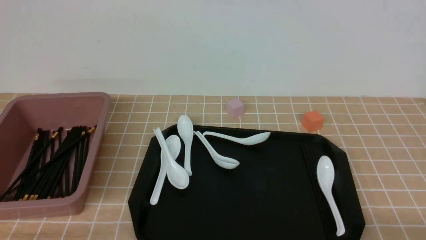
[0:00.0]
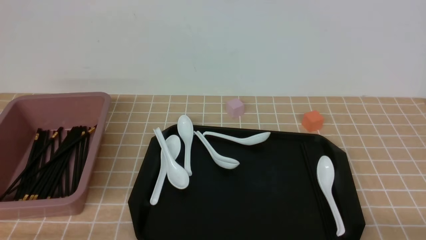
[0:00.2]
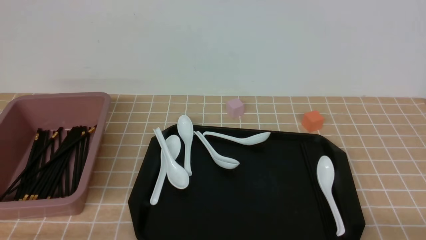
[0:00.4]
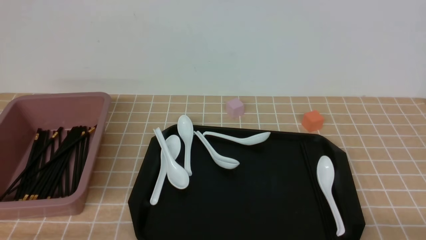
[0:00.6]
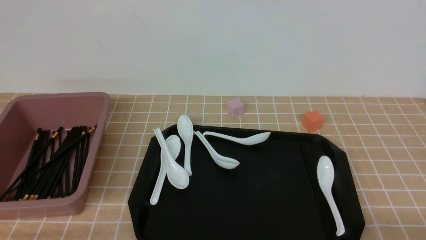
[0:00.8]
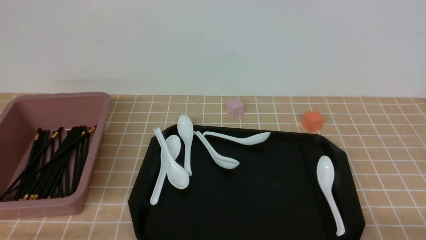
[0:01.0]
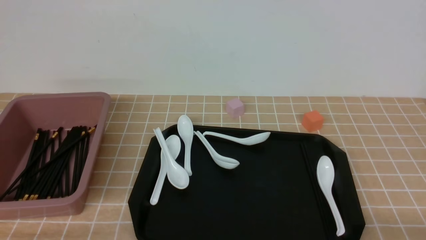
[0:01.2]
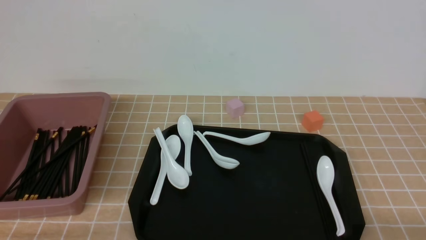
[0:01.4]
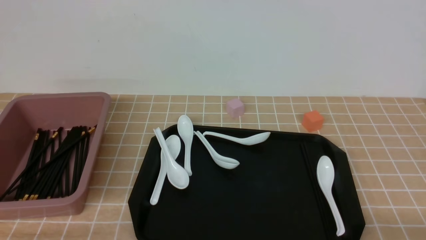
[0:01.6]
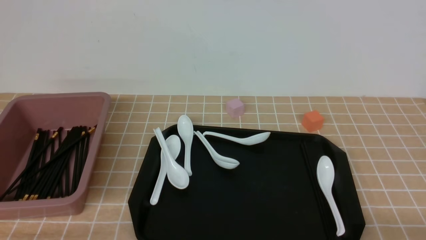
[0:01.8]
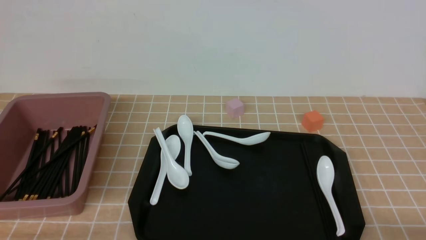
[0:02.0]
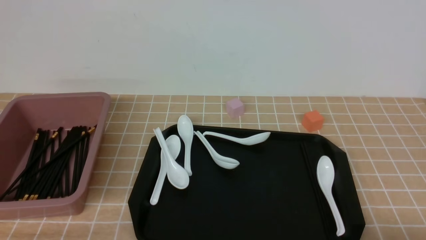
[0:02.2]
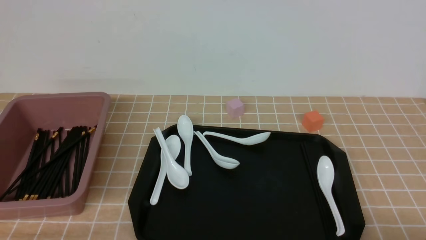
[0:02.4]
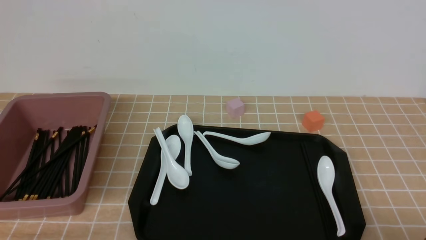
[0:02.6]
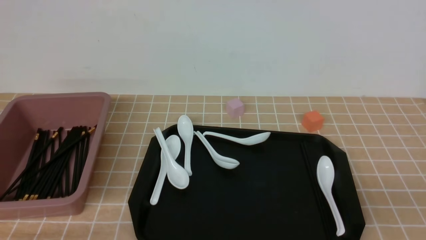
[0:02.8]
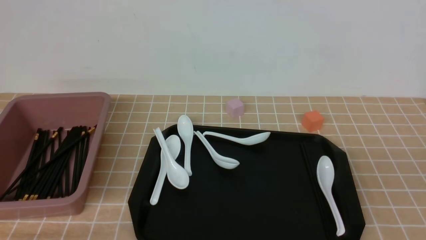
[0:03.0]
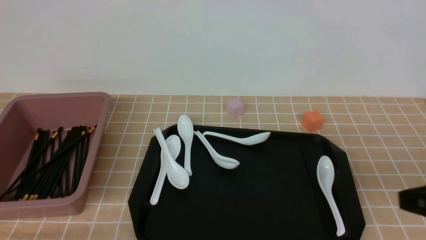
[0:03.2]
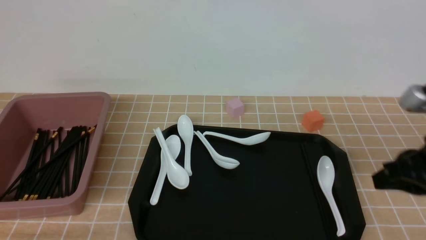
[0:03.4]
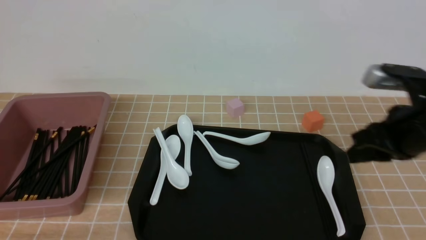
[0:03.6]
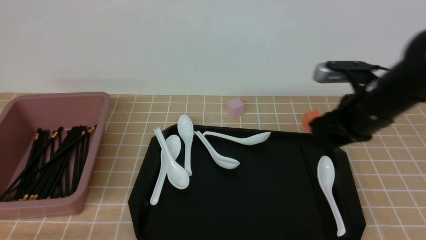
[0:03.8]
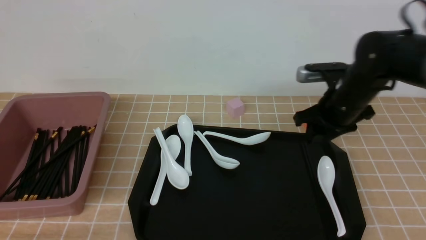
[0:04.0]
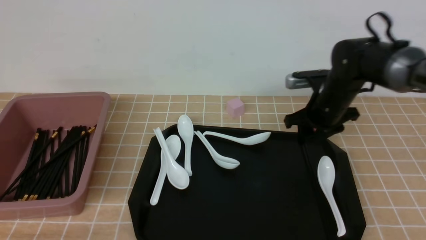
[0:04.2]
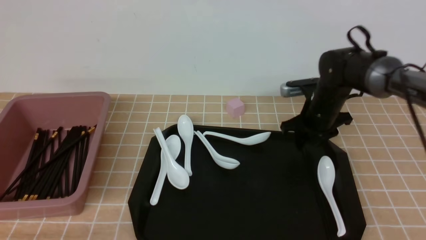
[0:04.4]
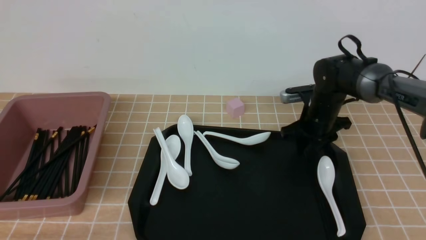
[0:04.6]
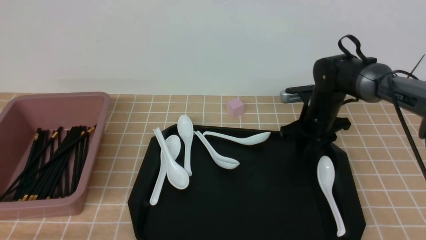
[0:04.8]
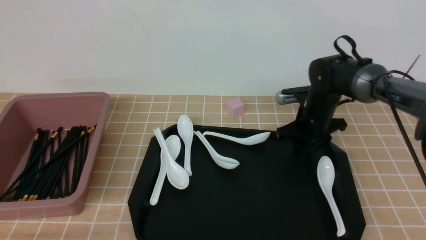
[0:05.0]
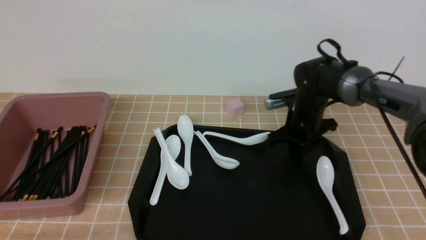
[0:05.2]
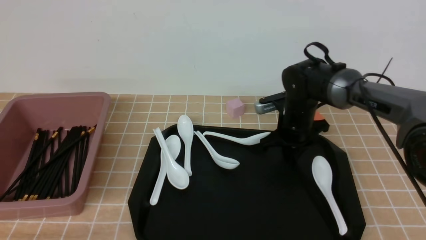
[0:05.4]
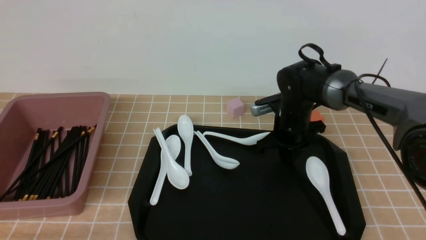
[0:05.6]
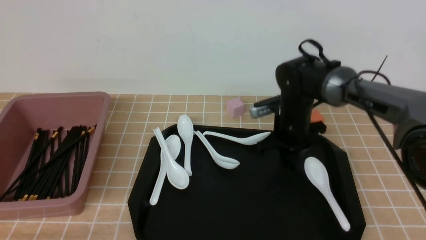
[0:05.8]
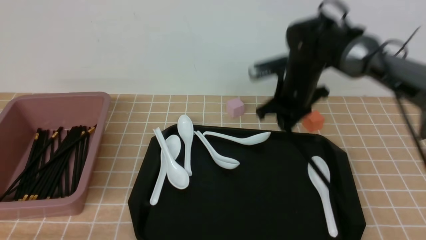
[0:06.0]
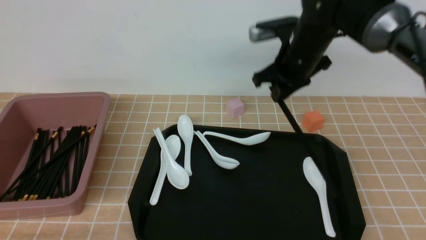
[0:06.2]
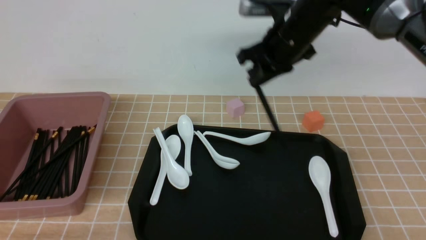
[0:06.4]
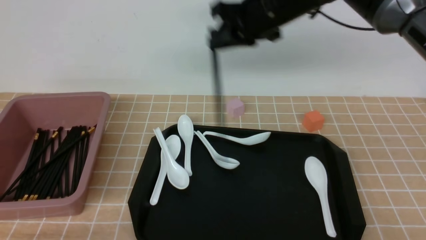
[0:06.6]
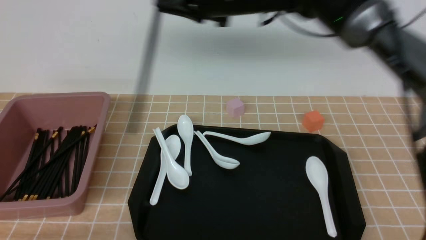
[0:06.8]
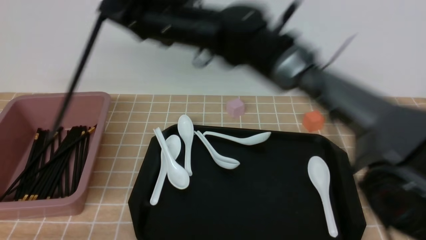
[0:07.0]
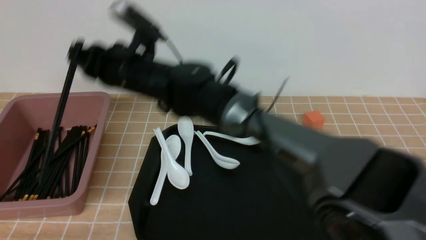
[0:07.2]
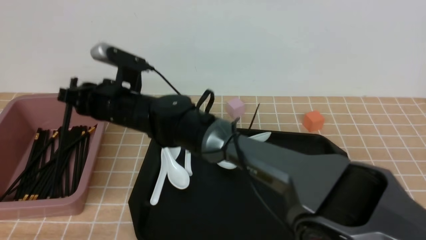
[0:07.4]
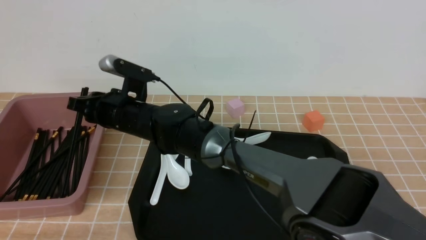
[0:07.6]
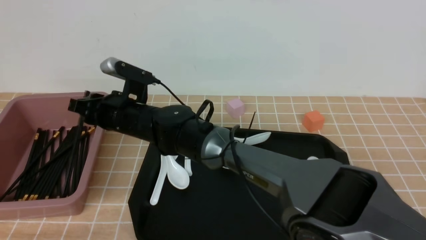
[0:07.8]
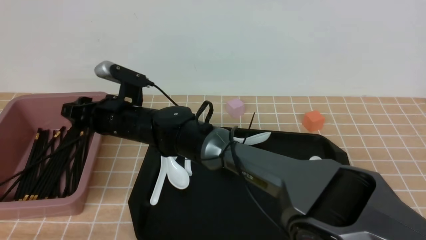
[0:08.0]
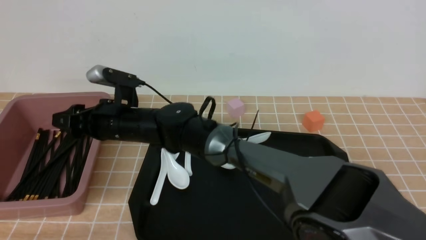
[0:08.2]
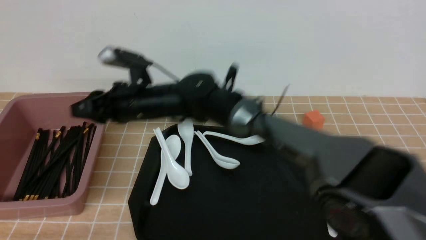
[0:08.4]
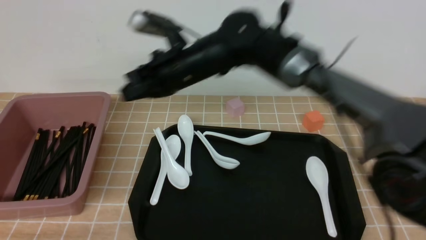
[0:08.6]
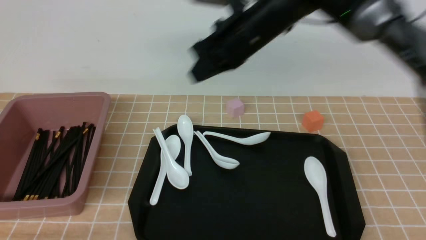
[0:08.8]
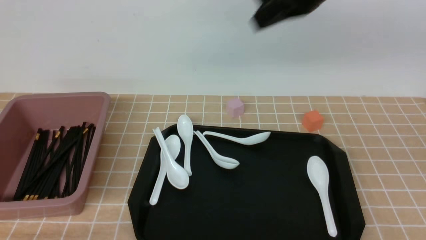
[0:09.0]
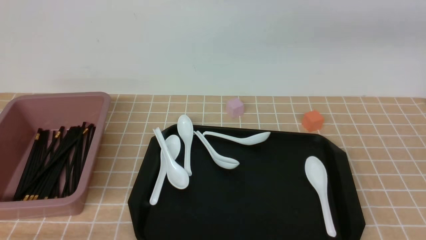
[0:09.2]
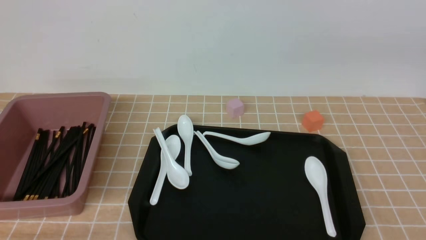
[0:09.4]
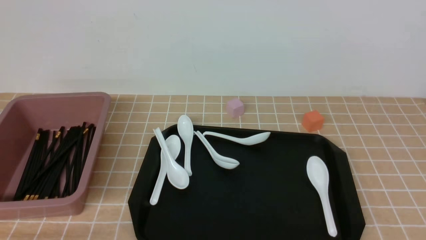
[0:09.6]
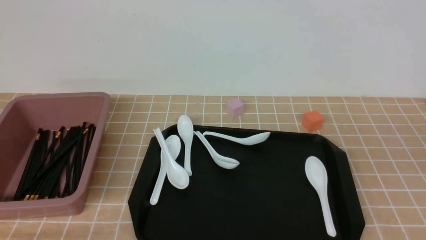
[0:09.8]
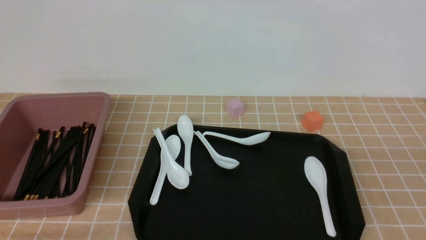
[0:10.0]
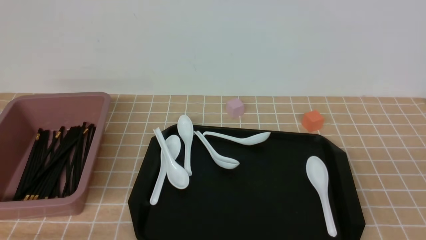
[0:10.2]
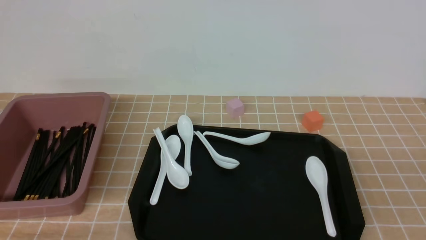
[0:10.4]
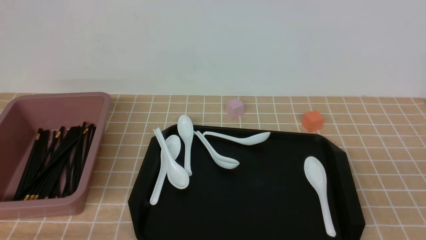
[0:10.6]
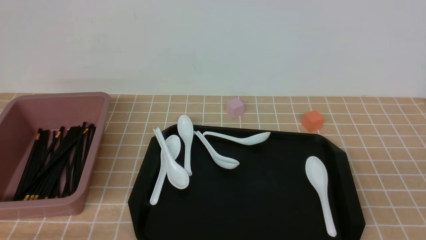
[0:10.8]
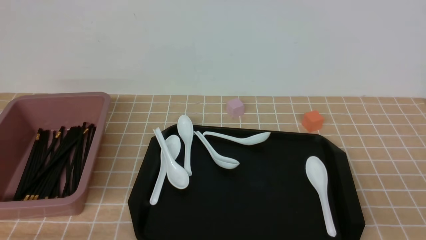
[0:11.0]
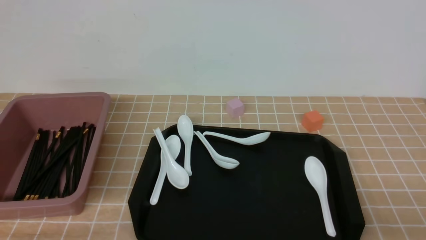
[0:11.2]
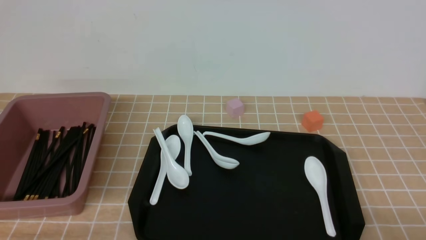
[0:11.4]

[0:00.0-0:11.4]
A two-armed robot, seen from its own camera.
Step, 0:00.0 to 0:06.0: use the right arm to grab a pair of chopsticks.
Step, 0:06.4 to 0:08.6: use the right arm to put the chopsticks into the lunch box.
0:00.0 to 0:01.4: Both grippers stay about where they are.
0:01.4 to 0:02.8: The right gripper travels upward by some 10 cm, and closes up.
0:02.8 to 0:04.2: The right gripper shifts approximately 40 cm forward, and opens.
0:04.2 to 0:05.6: The right gripper goes some 5 cm to the left, and closes its fingers.
0:05.6 to 0:07.2: The right gripper shifts about 30 cm to the left and upward.
0:07.2 to 0:08.6: The right gripper goes approximately 10 cm to the right, and opens, then closes once more.
0:08.6 to 0:10.0: The right gripper goes roughly 40 cm backward and to the right.

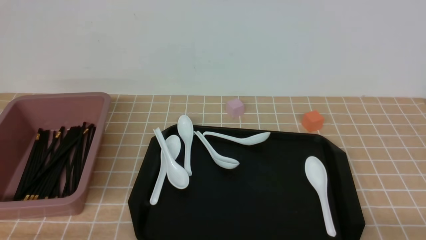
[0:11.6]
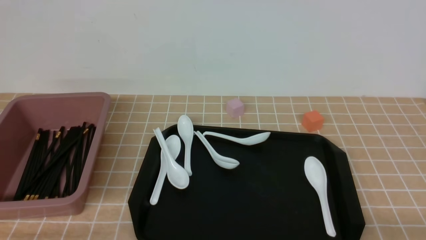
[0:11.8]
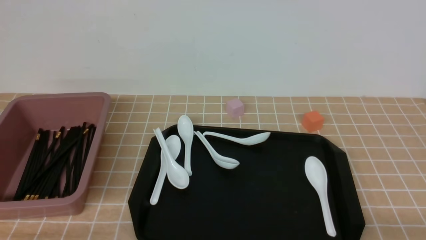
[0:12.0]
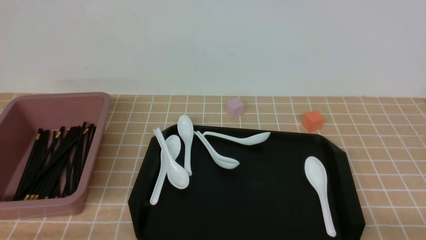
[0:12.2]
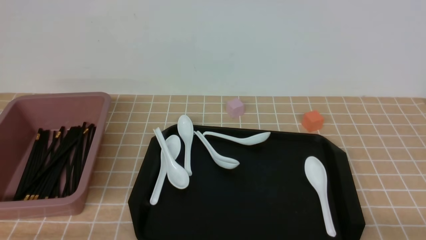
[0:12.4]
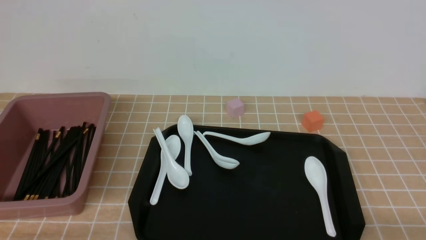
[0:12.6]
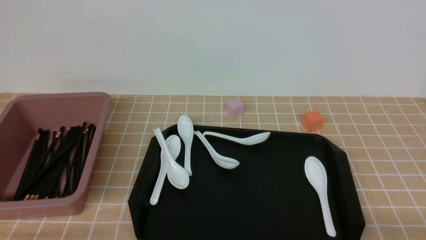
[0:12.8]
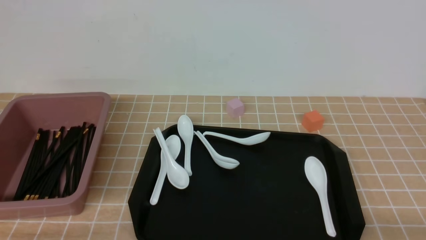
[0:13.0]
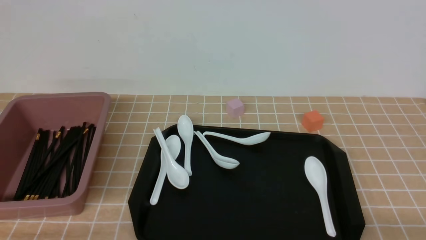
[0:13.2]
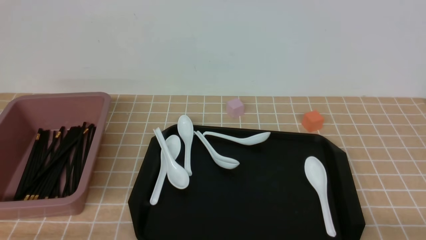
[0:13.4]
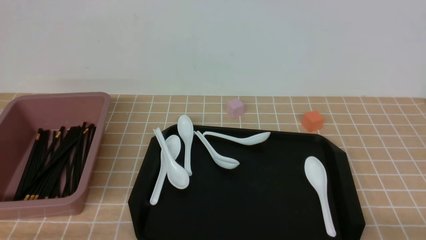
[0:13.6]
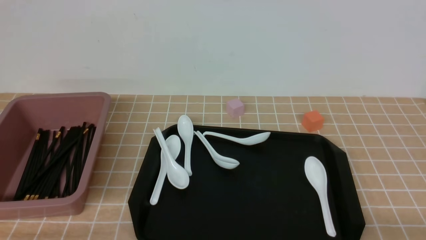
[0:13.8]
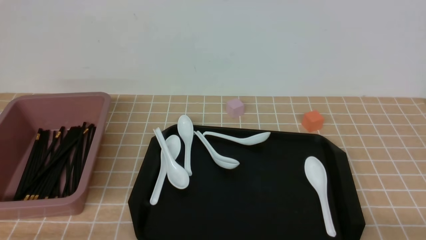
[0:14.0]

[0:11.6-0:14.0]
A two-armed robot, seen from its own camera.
0:11.6 to 0:14.0: Both grippers stay about where they are.

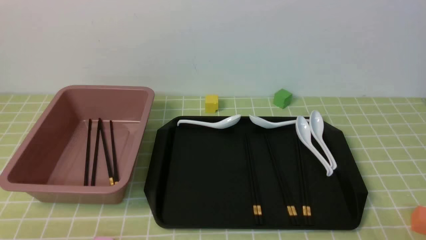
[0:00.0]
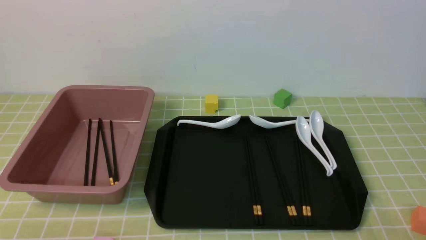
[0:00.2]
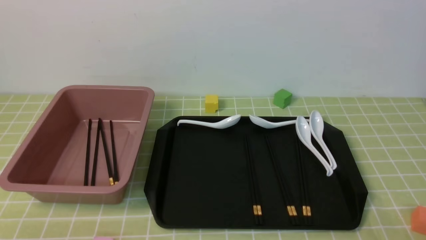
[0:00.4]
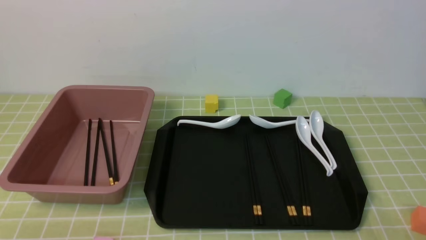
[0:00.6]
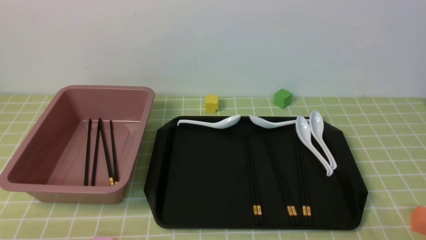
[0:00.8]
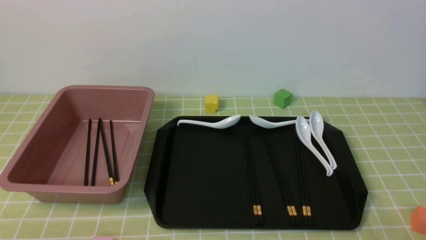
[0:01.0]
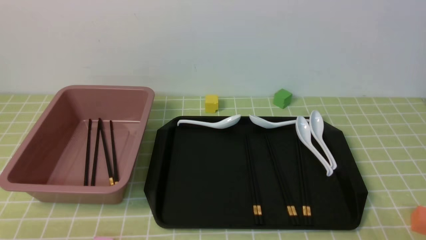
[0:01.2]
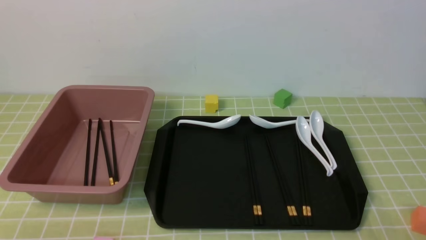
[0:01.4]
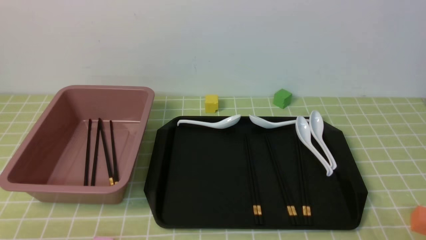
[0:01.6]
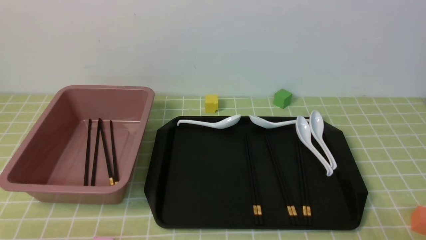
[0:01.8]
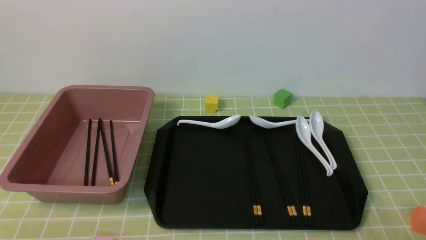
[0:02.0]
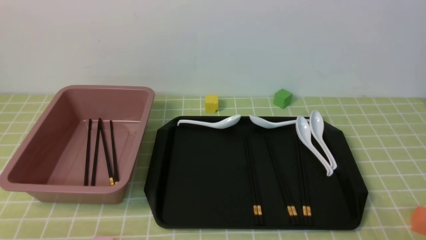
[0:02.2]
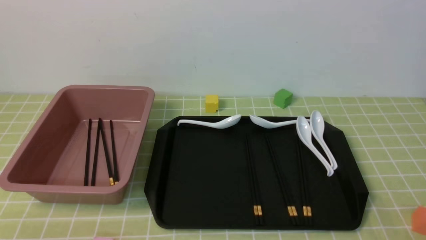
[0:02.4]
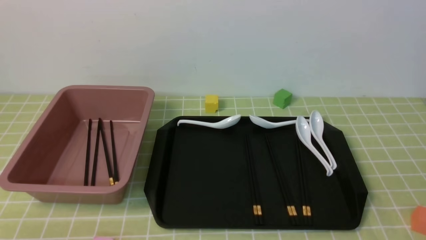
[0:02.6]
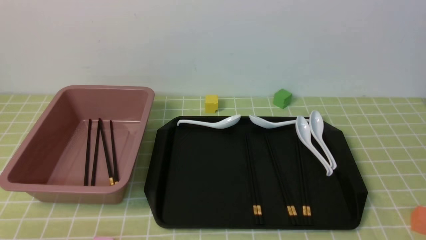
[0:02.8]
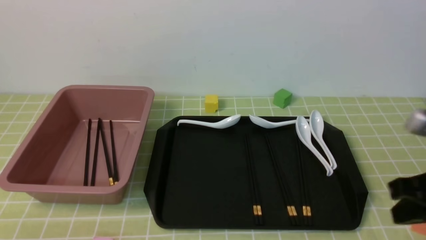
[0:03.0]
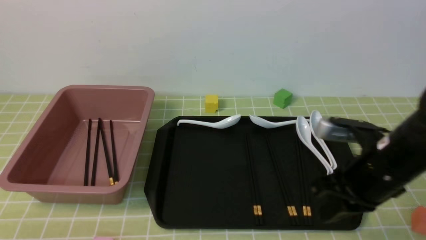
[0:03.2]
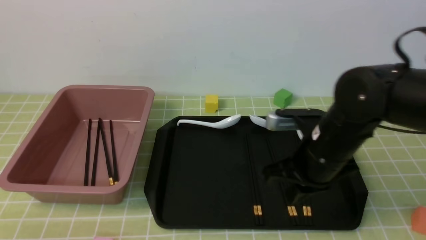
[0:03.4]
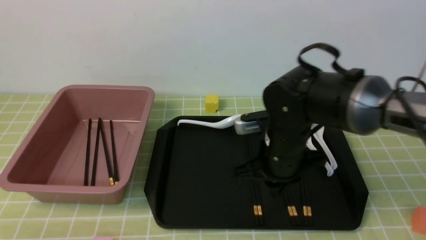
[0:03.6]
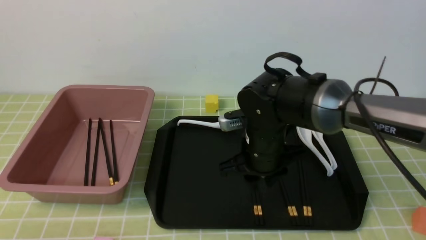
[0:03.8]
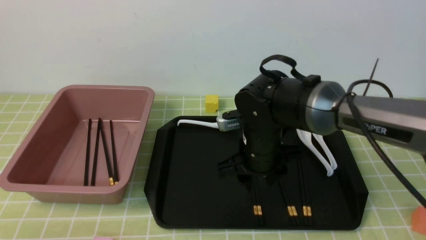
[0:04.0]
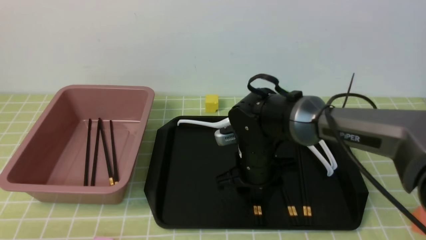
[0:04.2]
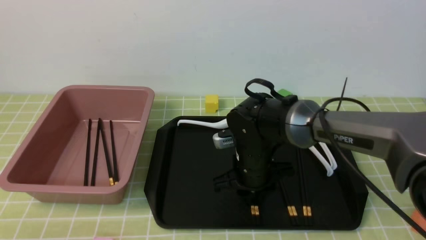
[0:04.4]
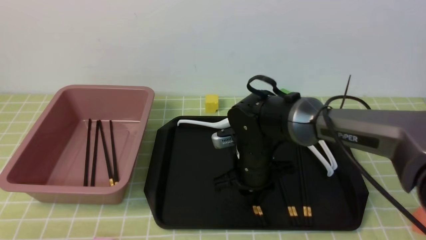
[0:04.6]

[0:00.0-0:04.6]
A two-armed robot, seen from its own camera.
0:01.6 to 0:03.0: The right gripper goes some 20 cm upward and forward, and closes its fingers.
0:03.0 to 0:04.6: The right gripper shifts approximately 30 cm to the left, forward and downward, and opens its fingers.
